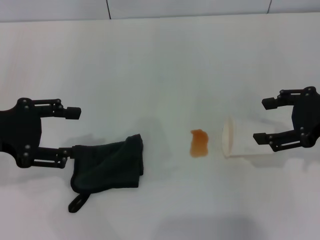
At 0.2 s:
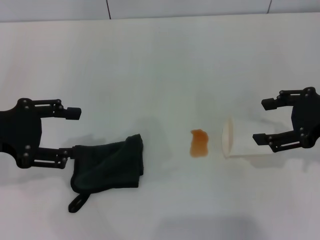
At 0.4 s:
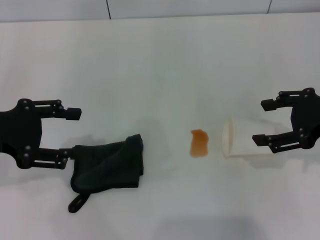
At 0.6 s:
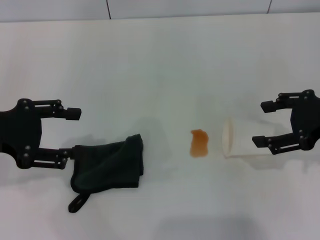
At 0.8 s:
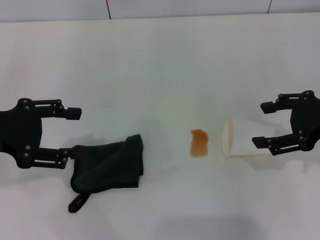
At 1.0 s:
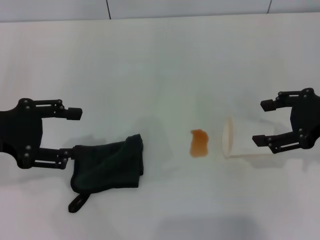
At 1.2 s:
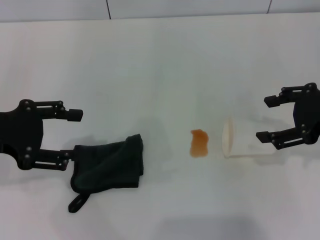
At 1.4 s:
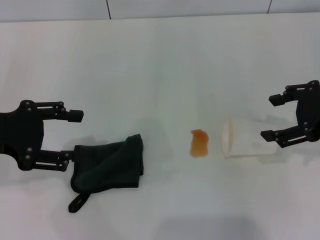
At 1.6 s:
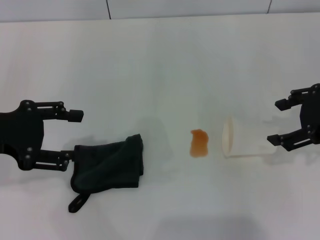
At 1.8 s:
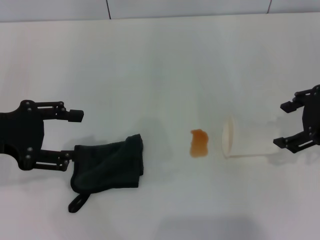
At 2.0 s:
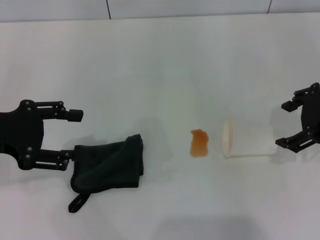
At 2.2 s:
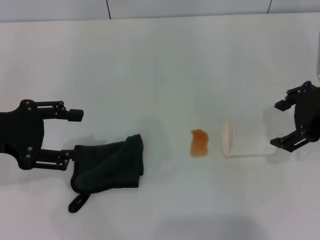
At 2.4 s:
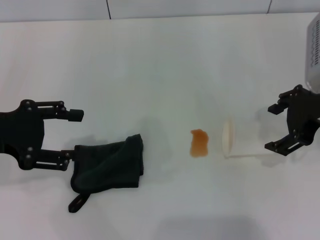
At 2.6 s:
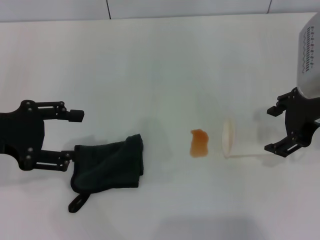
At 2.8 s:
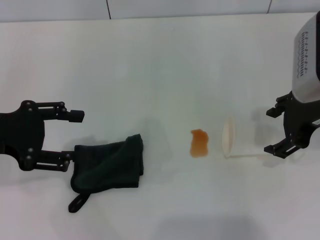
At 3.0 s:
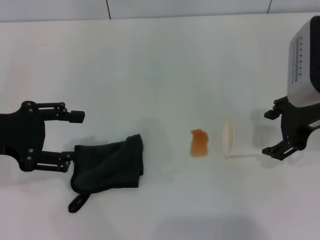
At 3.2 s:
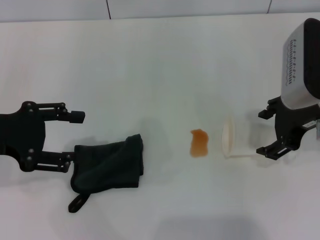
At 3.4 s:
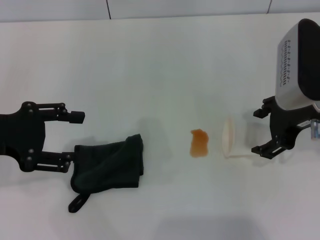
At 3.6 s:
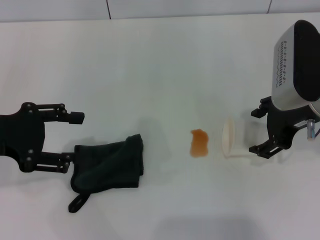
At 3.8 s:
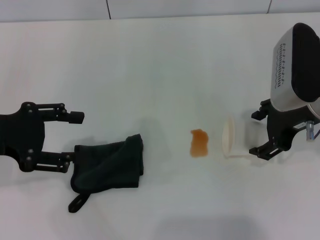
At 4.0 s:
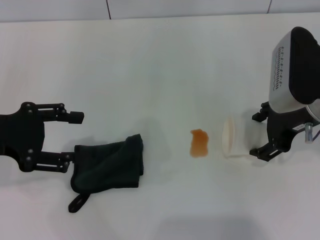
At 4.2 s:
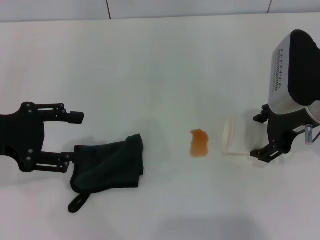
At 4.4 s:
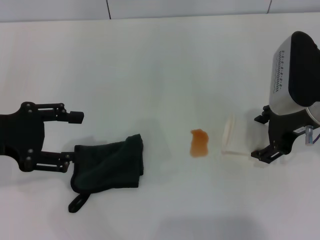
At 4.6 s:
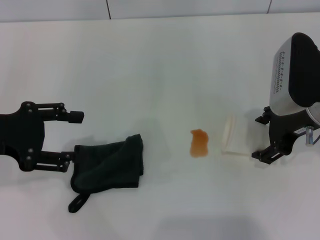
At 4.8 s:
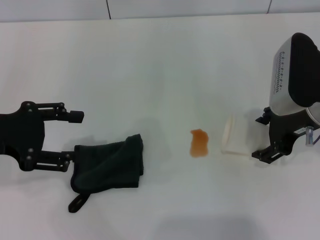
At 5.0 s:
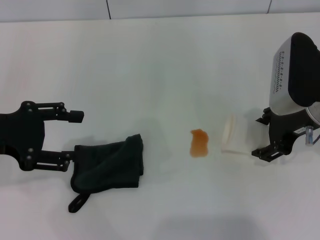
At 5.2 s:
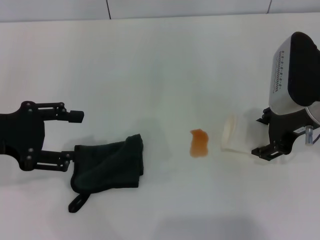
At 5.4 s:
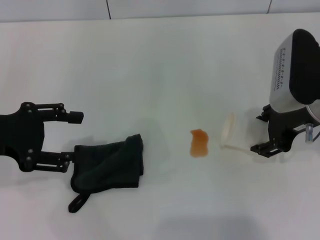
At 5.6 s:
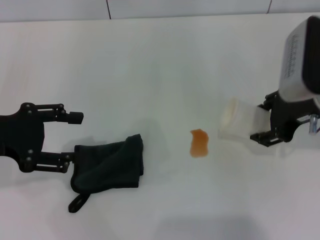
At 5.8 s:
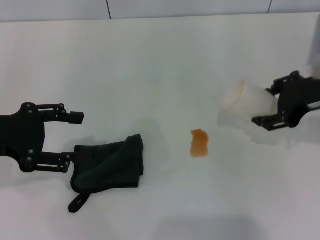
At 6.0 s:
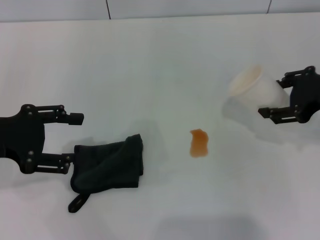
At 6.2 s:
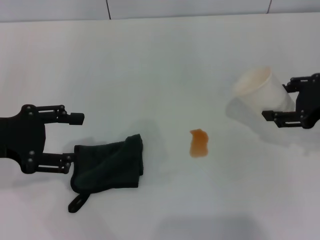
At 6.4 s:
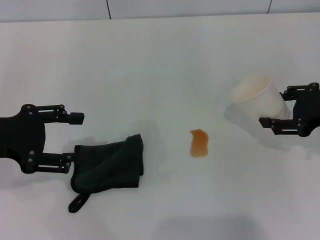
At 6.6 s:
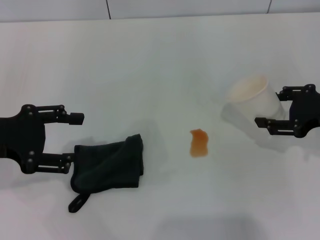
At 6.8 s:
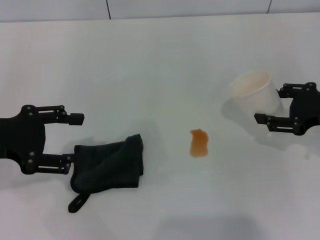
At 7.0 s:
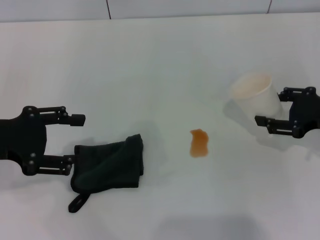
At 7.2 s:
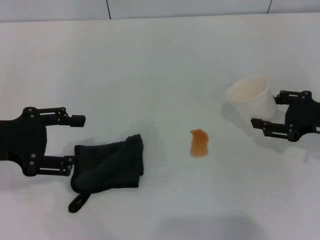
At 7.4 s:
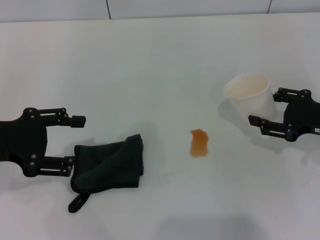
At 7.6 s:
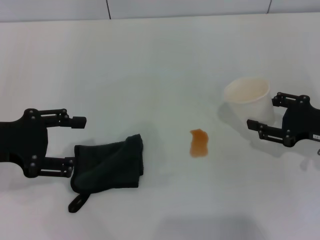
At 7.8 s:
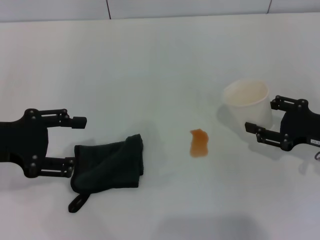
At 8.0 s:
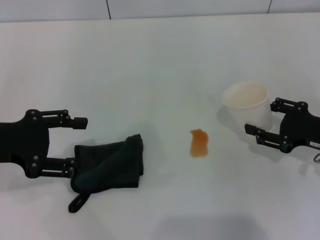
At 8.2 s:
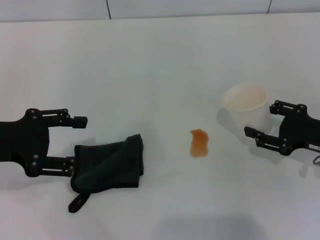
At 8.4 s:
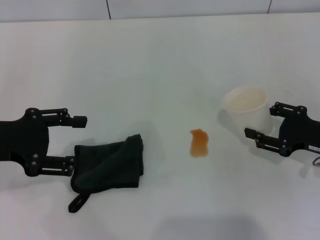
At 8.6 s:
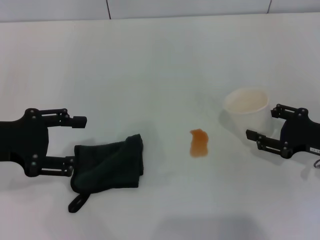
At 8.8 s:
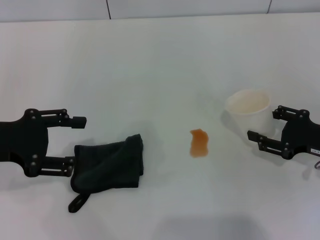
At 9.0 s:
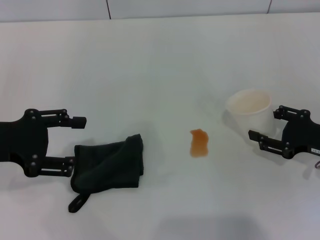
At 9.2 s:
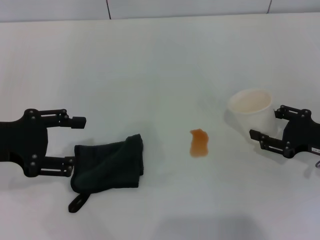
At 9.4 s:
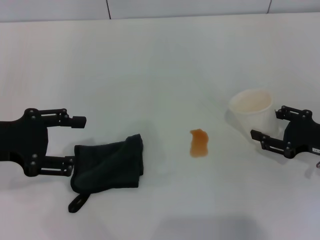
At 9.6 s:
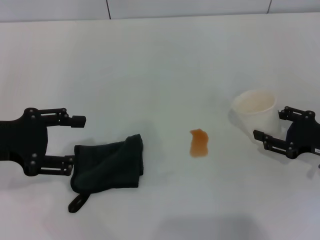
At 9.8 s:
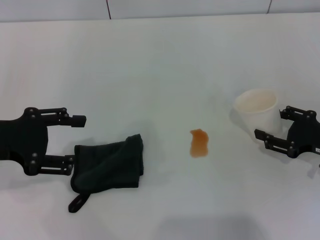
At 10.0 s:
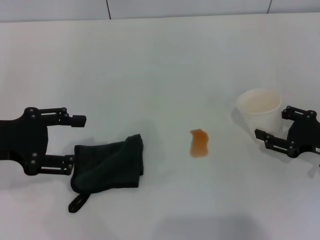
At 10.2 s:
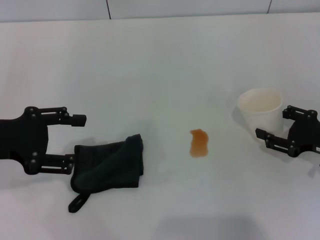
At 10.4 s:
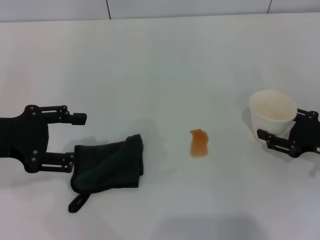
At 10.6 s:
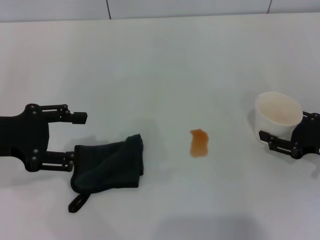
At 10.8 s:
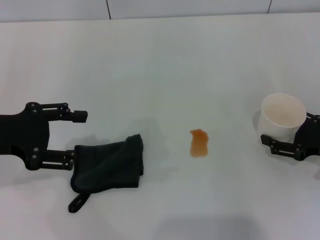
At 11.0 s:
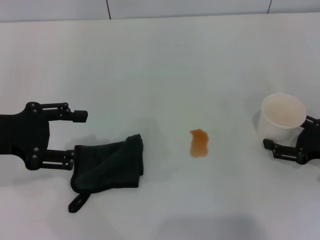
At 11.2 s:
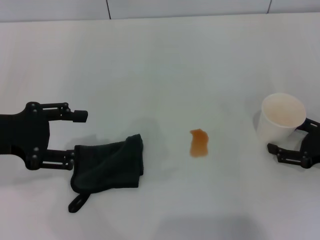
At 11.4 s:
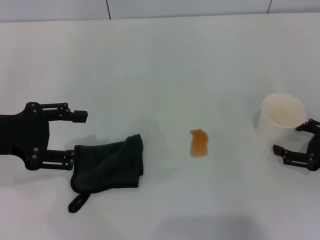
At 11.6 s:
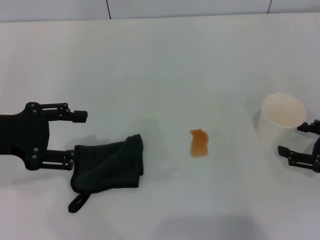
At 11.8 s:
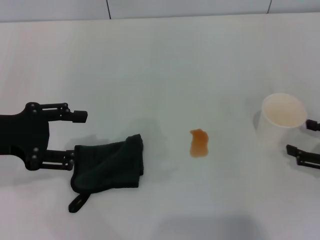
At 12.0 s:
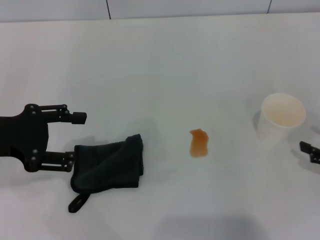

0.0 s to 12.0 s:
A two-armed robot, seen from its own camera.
Step, 0.0 to 5.0 s: Grasp the paper cup with the right gripper.
Step, 5.2 to 11.2 s: Stand the paper cup upright with the right gripper.
0.0 to 1.6 s: The grippers make only small movements.
1.6 to 3.0 s: The right gripper heads to the left, covering about 5 cm.
3.0 to 4.4 s: The grippers stay close to where they were, moving slightly.
4.4 to 6.0 s: The right gripper shifts roughly 5 cm to the right, and closes.
6.0 to 7.6 s: The right gripper moves downward, approximately 10 cm.
7.6 to 10.4 s: The grippers move only a little.
10.4 to 12.0 s: The right gripper travels backward by roughly 5 cm, and opens its fingers.

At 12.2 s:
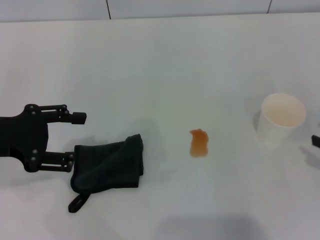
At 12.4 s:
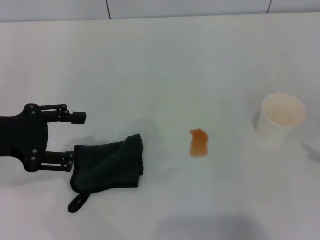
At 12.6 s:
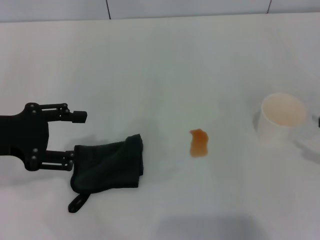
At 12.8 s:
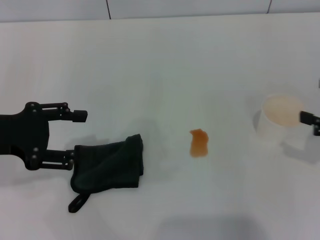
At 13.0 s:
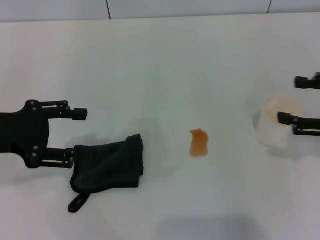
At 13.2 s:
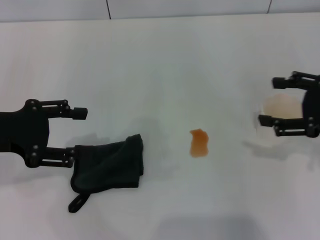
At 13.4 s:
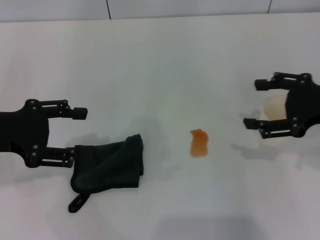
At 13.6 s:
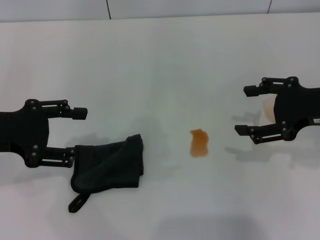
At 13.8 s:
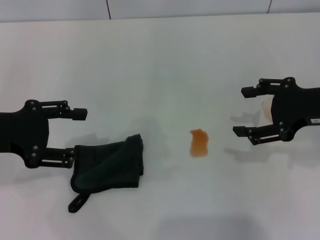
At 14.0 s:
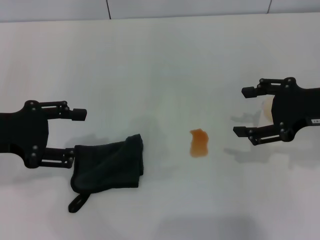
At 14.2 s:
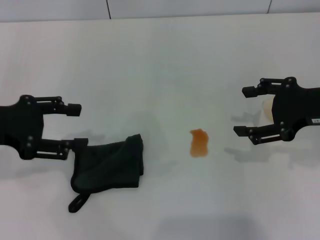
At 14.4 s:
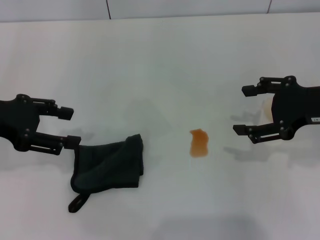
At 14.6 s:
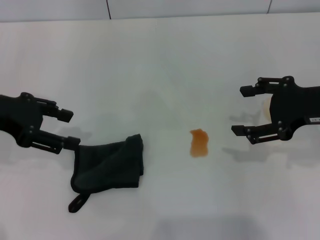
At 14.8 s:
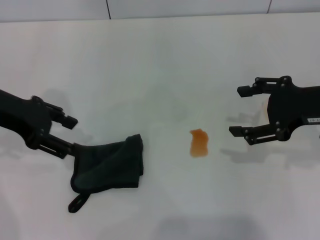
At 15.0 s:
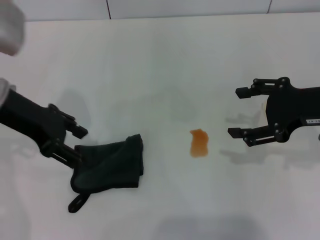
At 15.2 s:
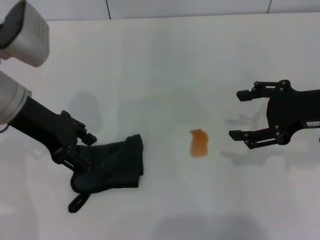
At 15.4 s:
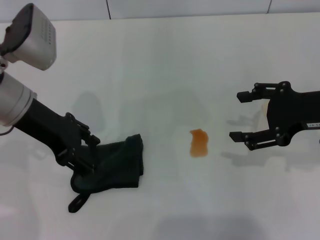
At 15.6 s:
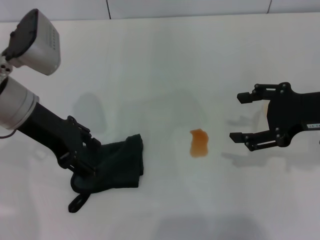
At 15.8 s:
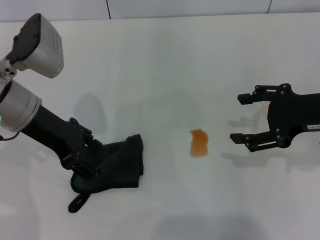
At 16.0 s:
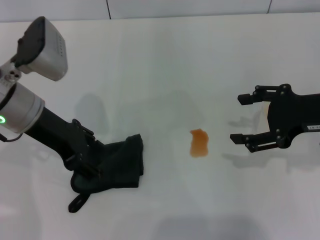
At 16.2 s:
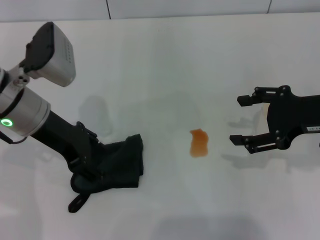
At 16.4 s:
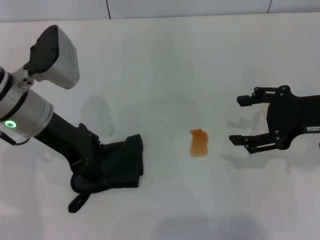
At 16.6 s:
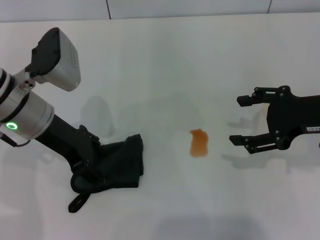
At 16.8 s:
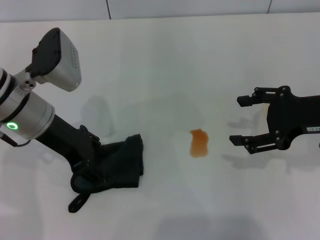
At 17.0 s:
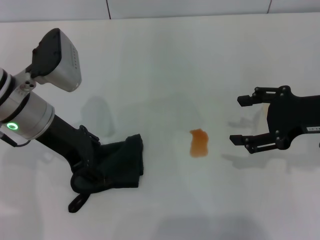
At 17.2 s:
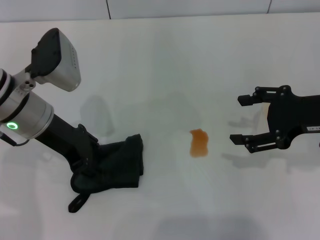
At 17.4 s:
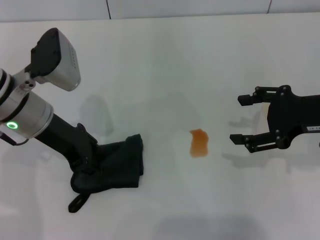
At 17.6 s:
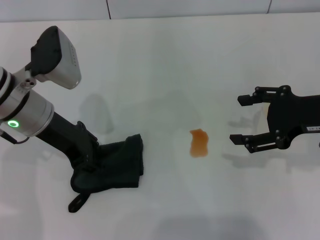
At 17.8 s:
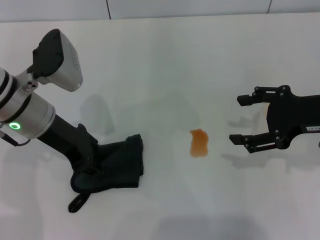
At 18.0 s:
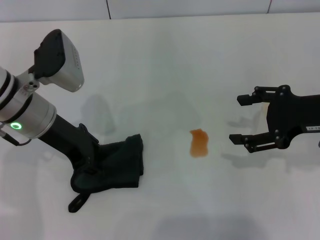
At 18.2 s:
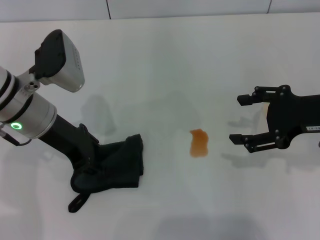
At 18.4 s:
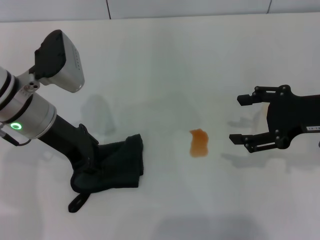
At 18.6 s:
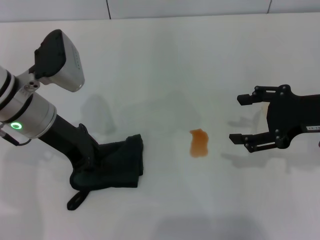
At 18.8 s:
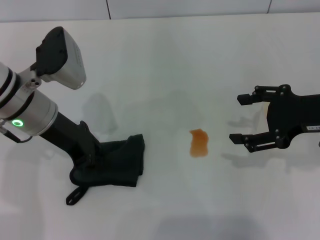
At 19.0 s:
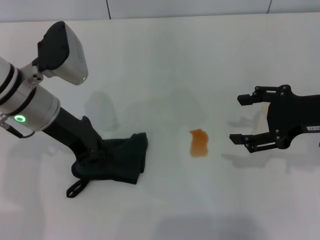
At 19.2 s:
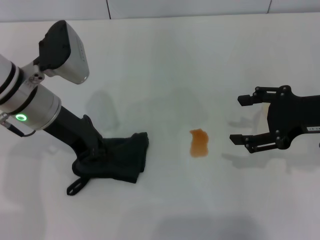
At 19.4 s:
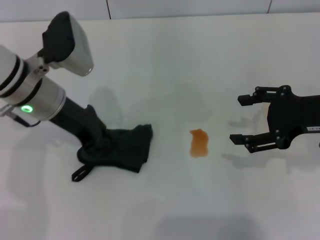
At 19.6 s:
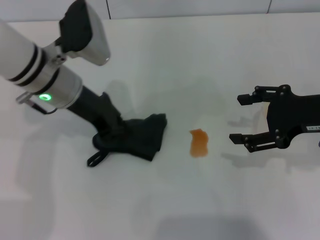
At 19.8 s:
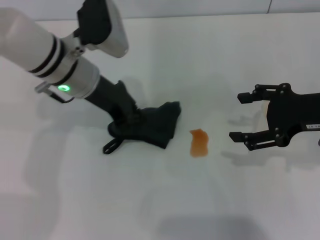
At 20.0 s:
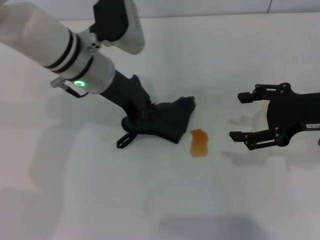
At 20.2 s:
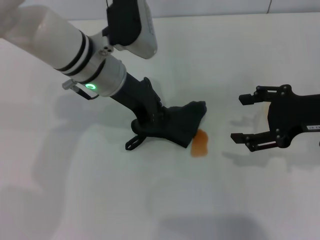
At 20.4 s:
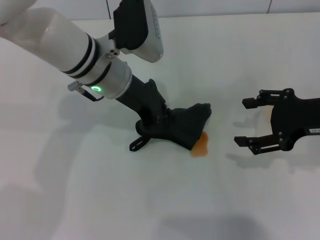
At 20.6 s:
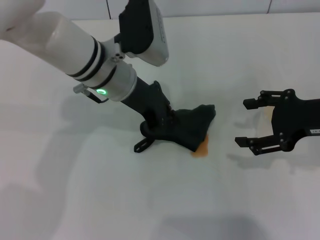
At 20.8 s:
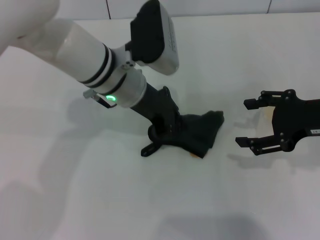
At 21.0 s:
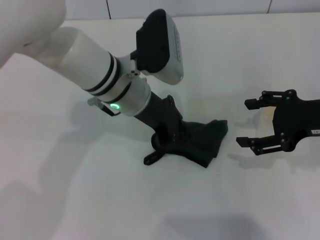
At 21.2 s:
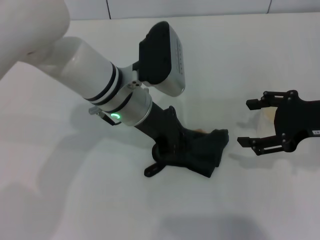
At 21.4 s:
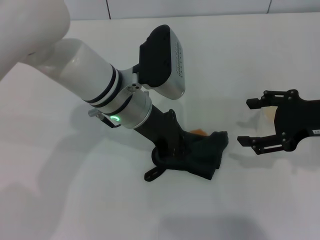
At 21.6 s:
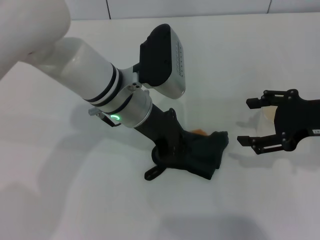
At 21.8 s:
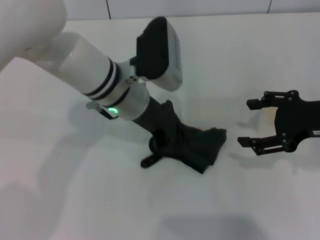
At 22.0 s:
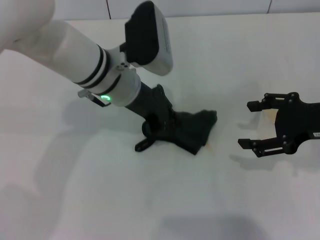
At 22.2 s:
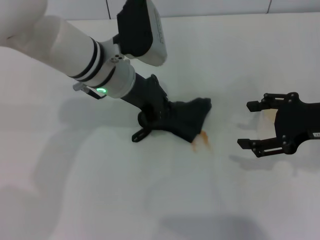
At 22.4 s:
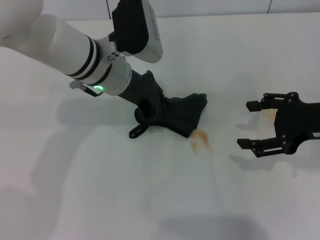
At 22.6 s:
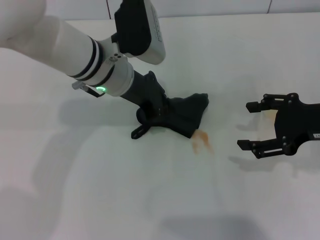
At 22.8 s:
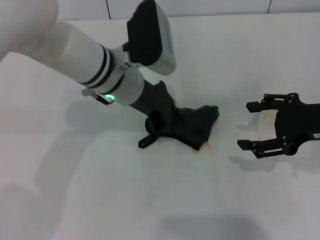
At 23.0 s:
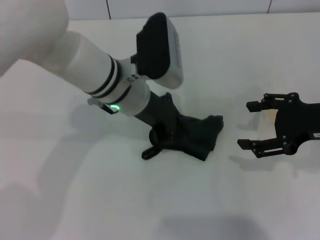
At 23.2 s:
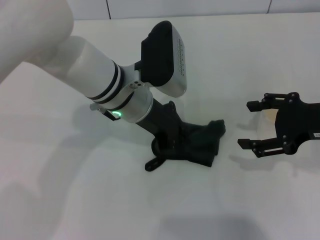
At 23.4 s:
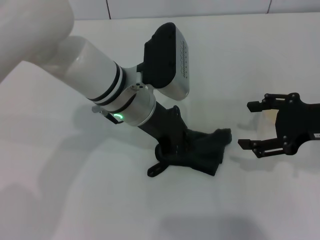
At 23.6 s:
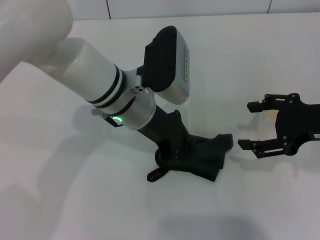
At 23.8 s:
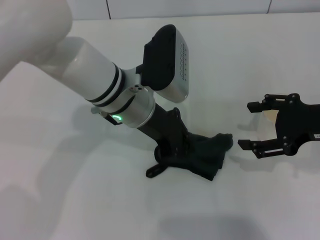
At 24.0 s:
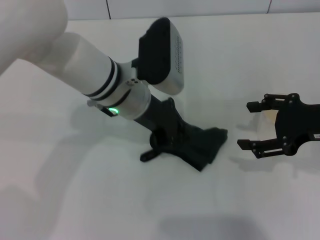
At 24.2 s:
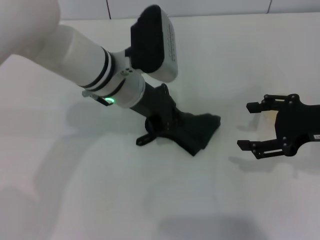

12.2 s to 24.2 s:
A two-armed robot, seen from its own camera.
Step, 12.2 to 19.0 s: Grasp the rag with the left gripper.
12.2 to 13.8 s: The right gripper is displaced to the left, upward and forward by about 15 cm.
13.8 to 15.2 s: The left gripper shifts approximately 10 cm to the right and forward.
15.2 to 16.6 s: There are only small adjustments of the grippers.
16.6 to 18.2 s: The two grippers keep their place.
18.2 to 19.8 s: The left gripper heads to the right, covering some 5 cm, and closes up.
19.8 to 21.2 s: The left gripper heads to the right, covering about 5 cm.
22.6 to 24.2 s: There are only small adjustments of the grippers.
